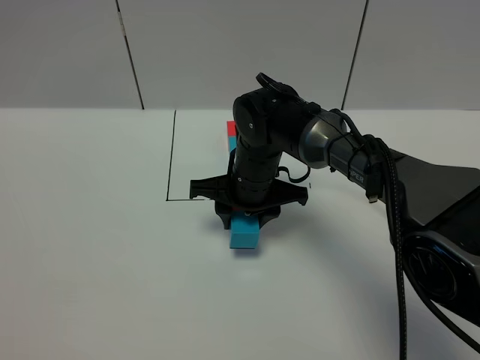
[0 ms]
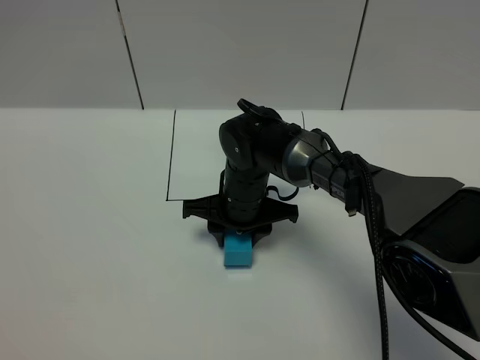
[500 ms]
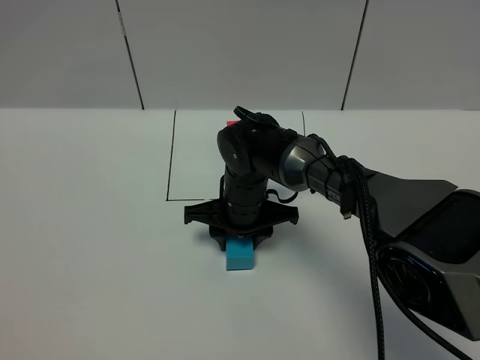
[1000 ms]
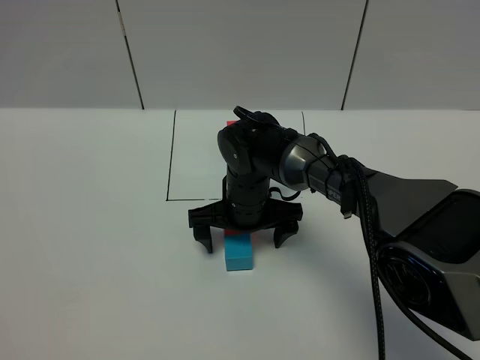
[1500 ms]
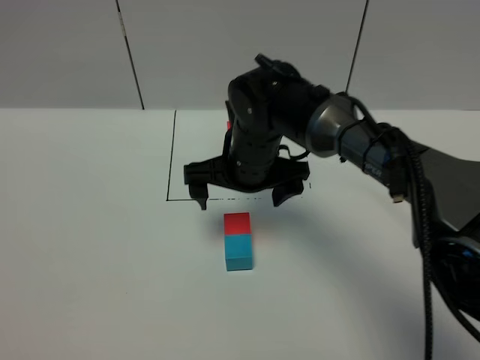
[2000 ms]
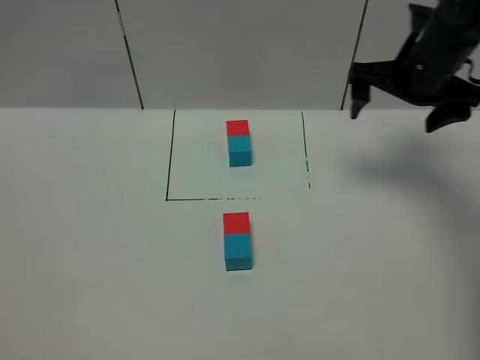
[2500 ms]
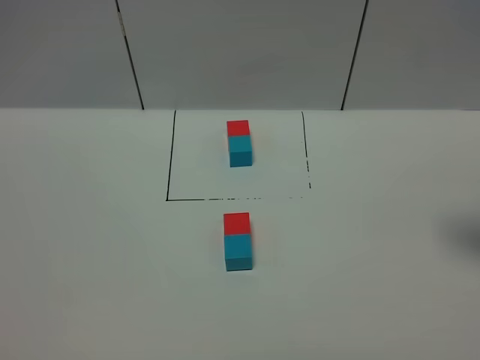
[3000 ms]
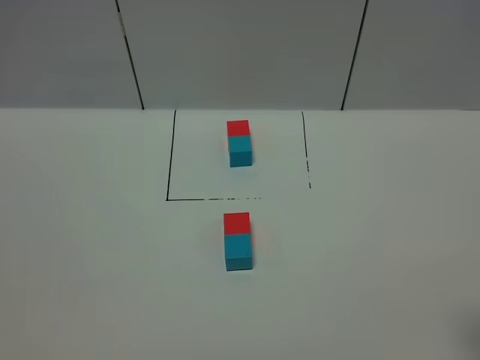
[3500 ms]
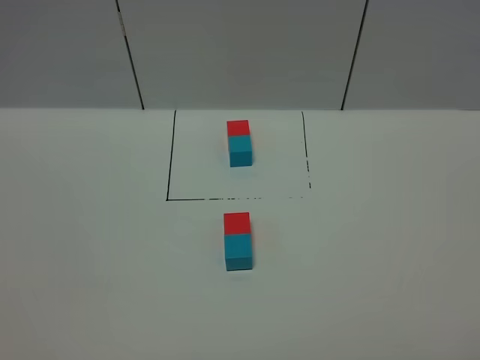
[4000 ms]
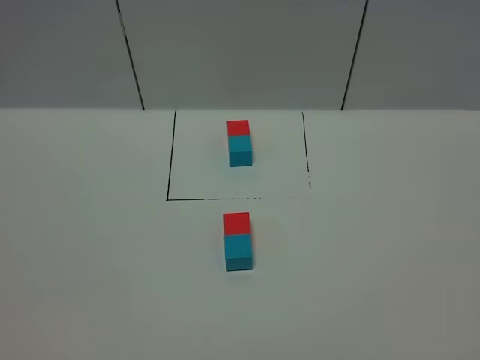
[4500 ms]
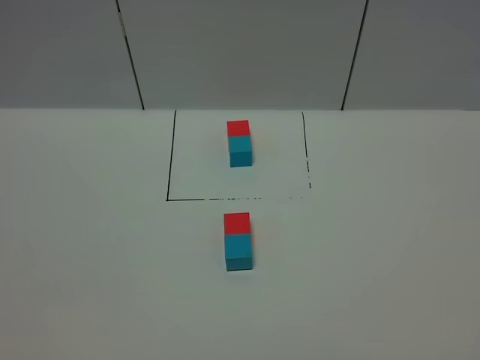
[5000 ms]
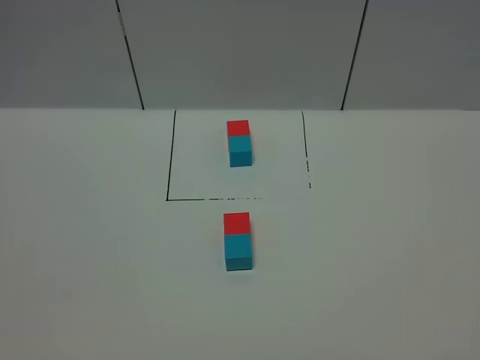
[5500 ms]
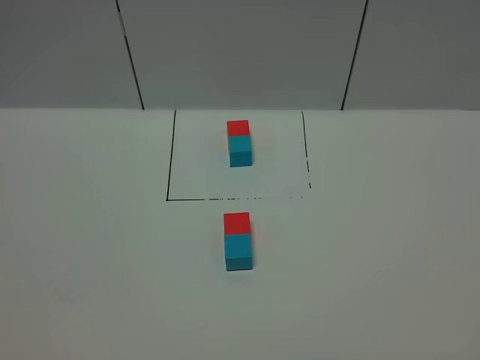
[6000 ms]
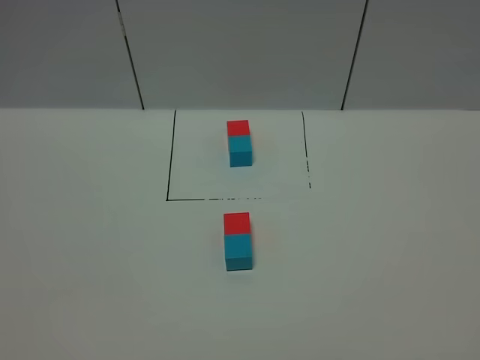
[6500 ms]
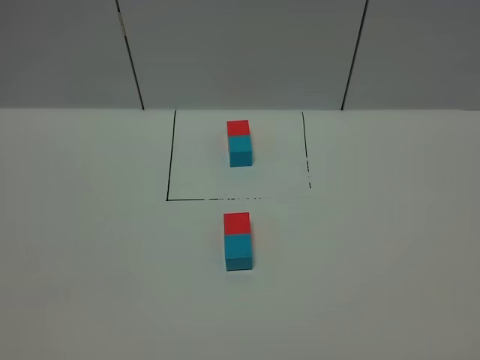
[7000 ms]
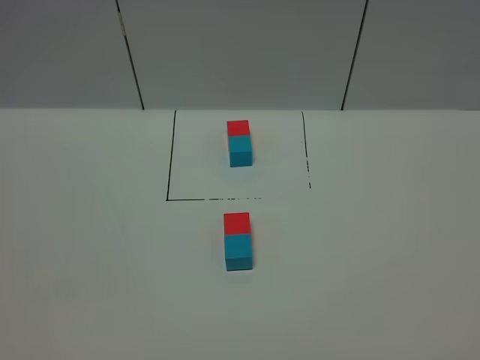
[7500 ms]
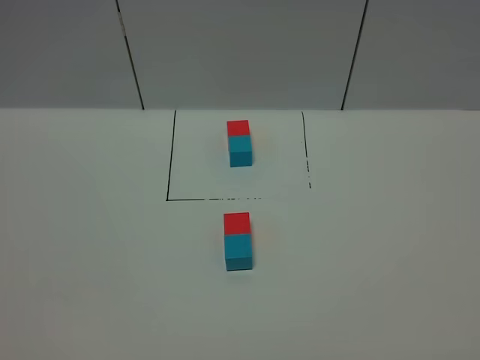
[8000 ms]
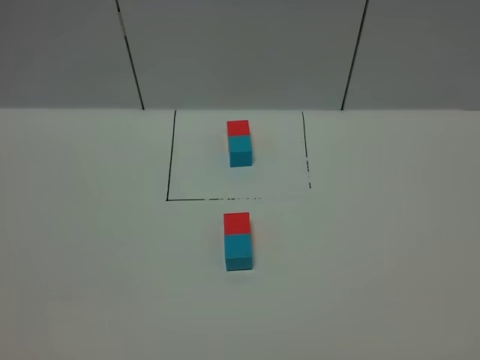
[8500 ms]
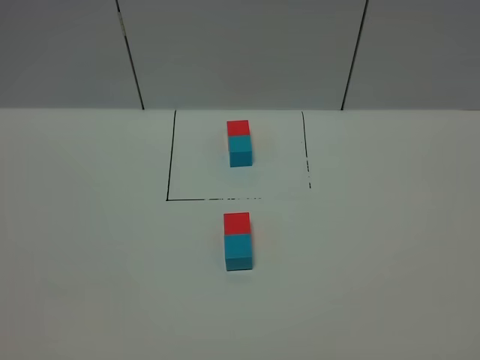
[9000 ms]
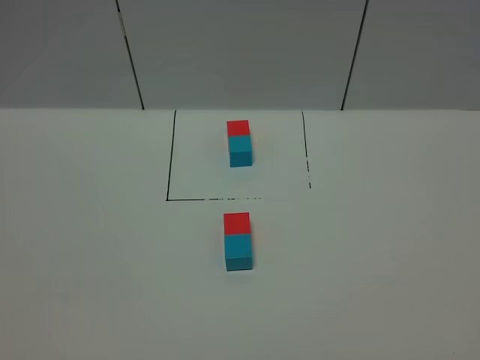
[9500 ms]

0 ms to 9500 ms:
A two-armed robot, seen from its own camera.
Task of the whole recording: According to the building block template in front, assemble the scattered blocks together.
Step, 0 ms to 2000 ms: Adjust the position of the cube with the right gripper.
0 ms to 2000 ms: The right gripper moves upward, approximately 5 cm, and opens.
2000 ms to 4000 ms: The right gripper moves backward and to the right, approximately 40 cm.
5500 ms to 9500 ms: The two grippers keep their place.
